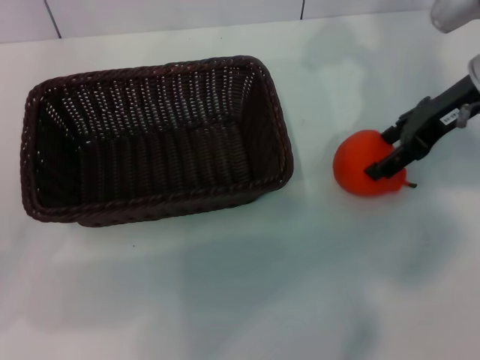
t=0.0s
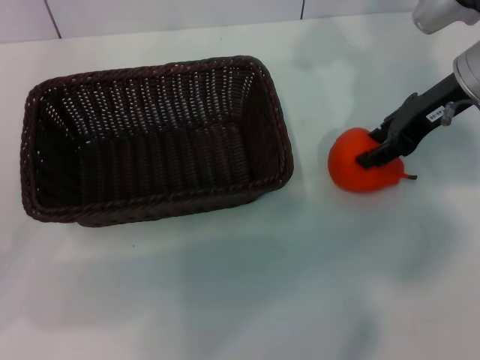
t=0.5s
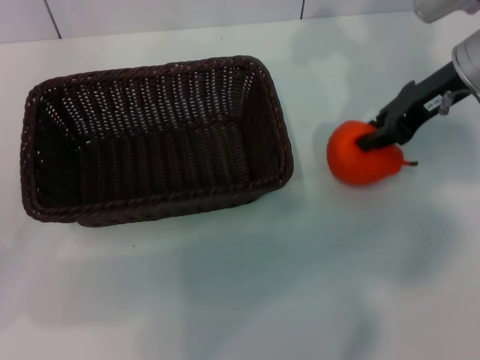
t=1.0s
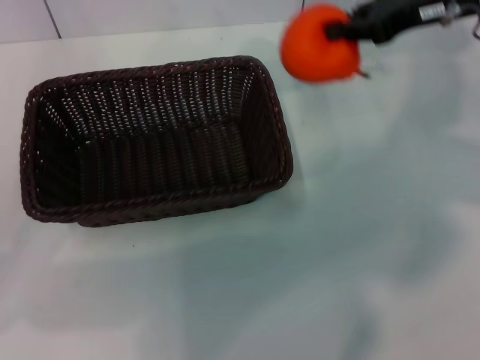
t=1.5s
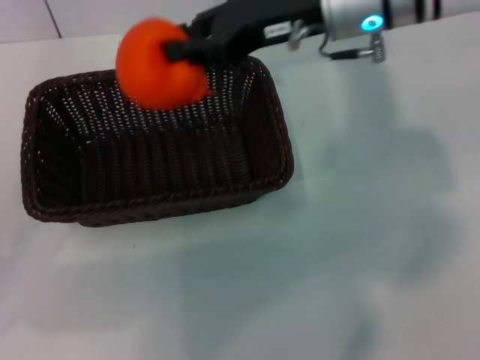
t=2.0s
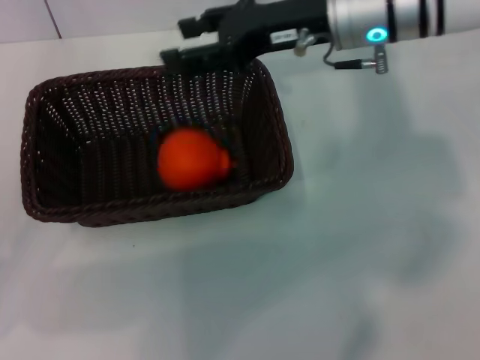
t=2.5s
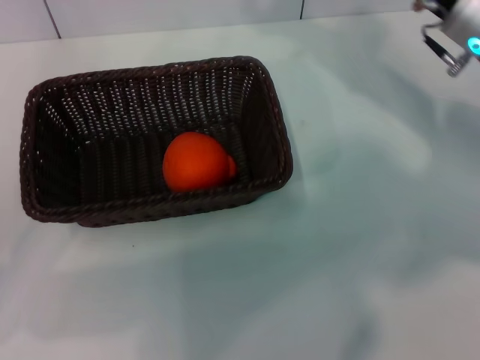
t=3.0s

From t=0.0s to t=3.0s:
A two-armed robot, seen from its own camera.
Task of the whole recording: the left gripper pick up the black basket and place it horizontally in the middle of the table, the right gripper pick up the orange and place it into the black basket.
Step, from t=1.5s to t=2.0s: Place the orange into the dark basket with the right gripper.
From t=0.0s to t=1.5s: The right gripper travels upward by some 5 cm, and closes up.
From t=1.5s to t=3.0s: The right gripper travels downward by roughly 5 cm, reaches approximately 15 cm to the left, then returns, and opens.
